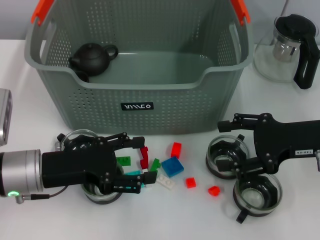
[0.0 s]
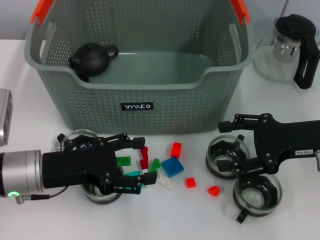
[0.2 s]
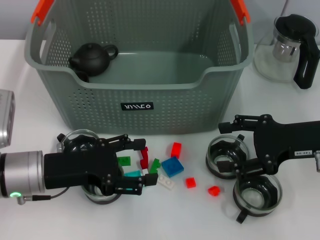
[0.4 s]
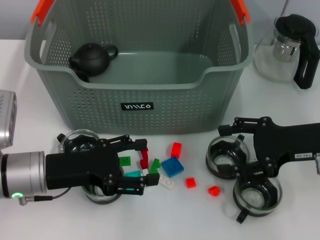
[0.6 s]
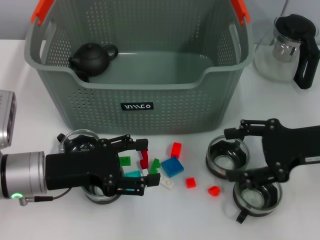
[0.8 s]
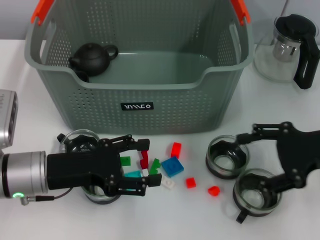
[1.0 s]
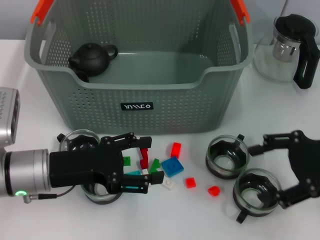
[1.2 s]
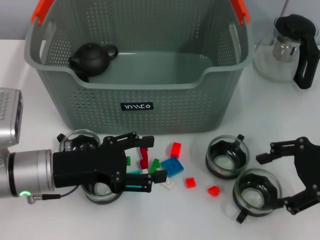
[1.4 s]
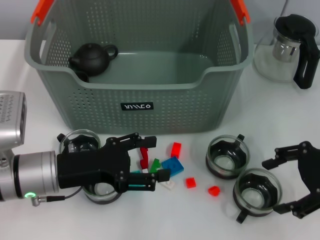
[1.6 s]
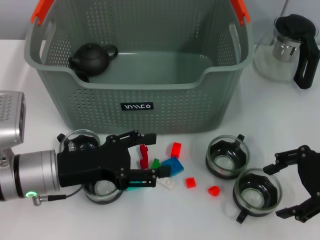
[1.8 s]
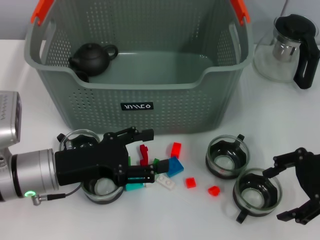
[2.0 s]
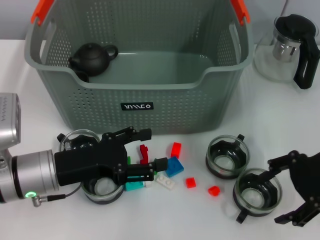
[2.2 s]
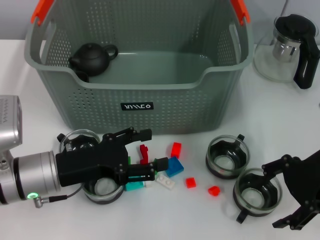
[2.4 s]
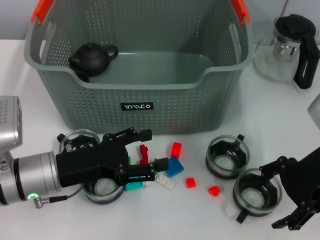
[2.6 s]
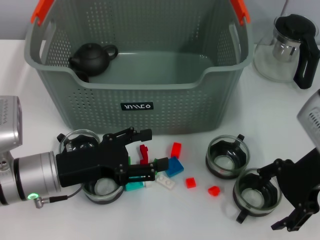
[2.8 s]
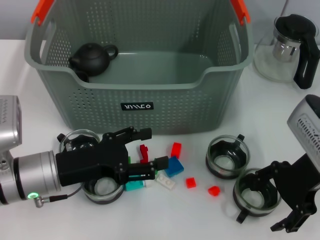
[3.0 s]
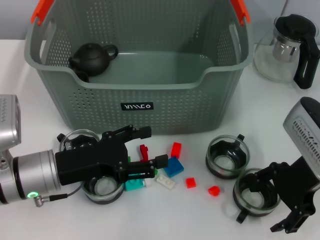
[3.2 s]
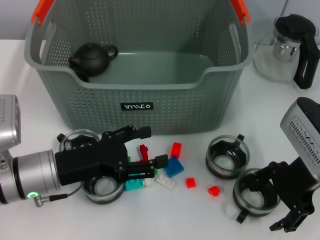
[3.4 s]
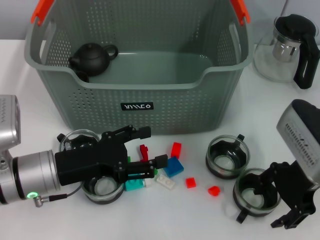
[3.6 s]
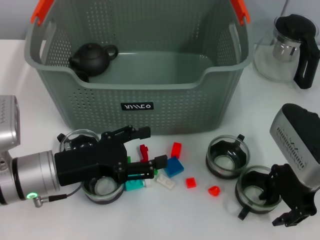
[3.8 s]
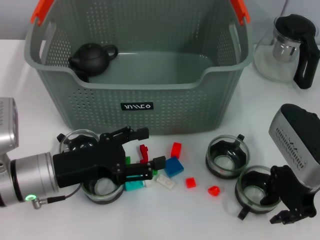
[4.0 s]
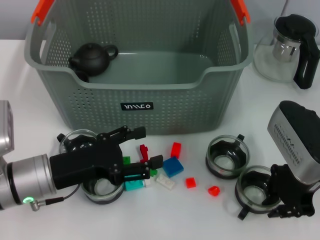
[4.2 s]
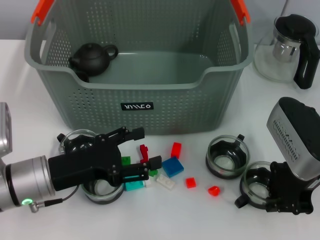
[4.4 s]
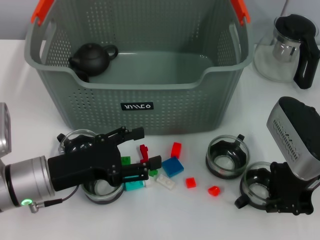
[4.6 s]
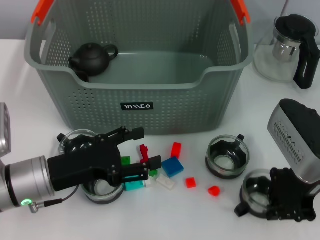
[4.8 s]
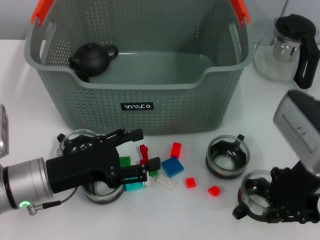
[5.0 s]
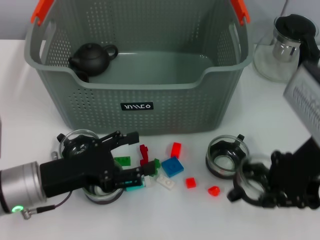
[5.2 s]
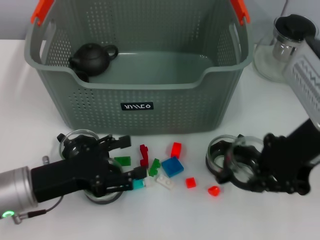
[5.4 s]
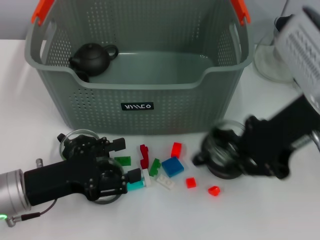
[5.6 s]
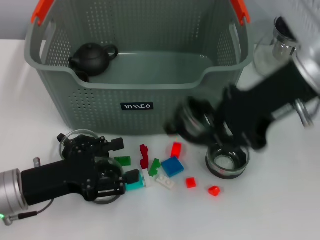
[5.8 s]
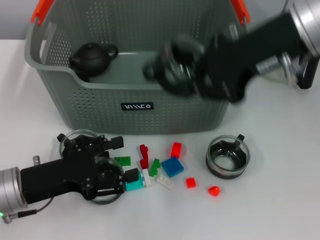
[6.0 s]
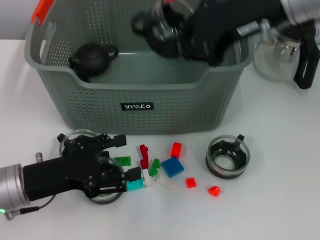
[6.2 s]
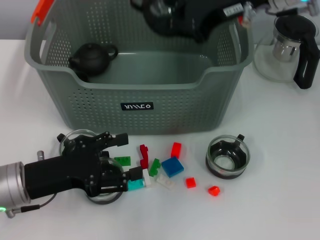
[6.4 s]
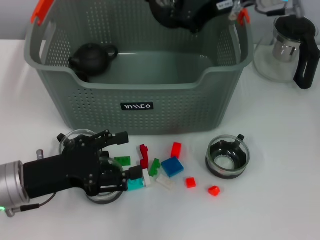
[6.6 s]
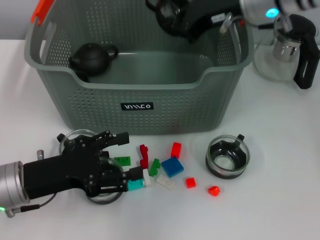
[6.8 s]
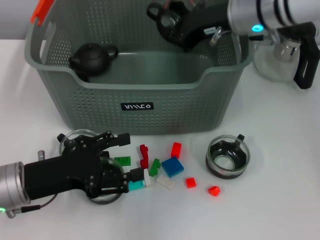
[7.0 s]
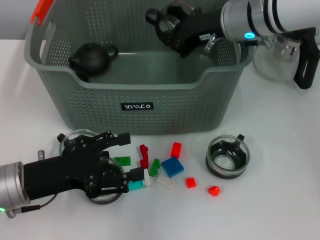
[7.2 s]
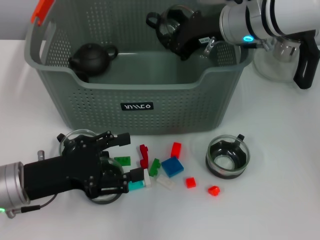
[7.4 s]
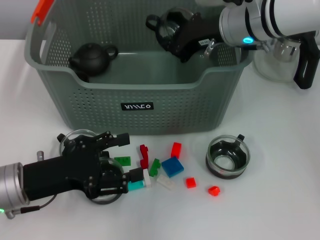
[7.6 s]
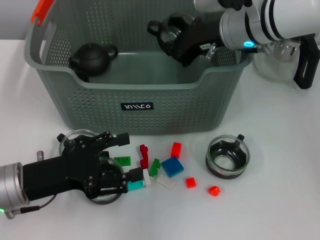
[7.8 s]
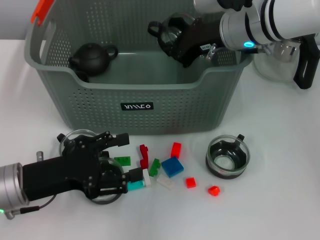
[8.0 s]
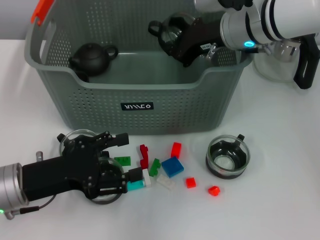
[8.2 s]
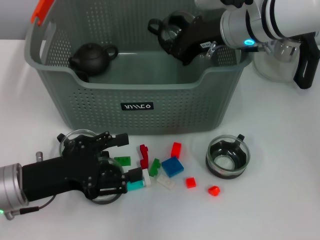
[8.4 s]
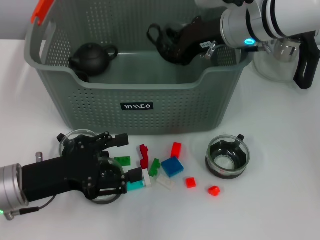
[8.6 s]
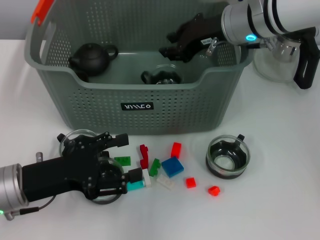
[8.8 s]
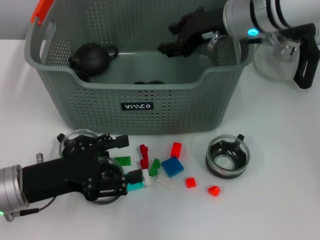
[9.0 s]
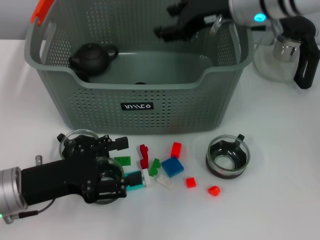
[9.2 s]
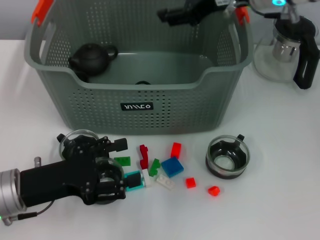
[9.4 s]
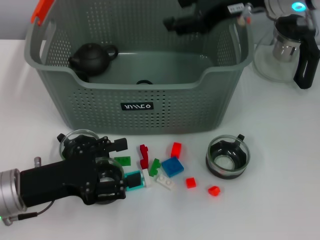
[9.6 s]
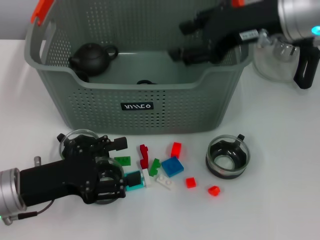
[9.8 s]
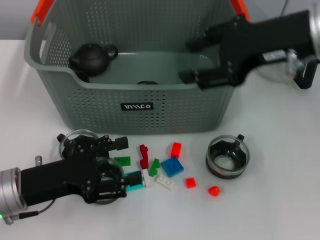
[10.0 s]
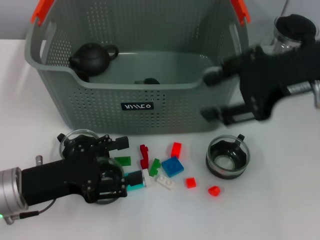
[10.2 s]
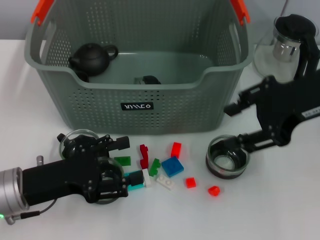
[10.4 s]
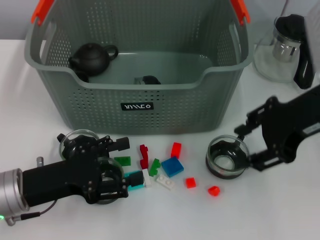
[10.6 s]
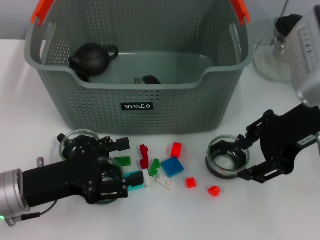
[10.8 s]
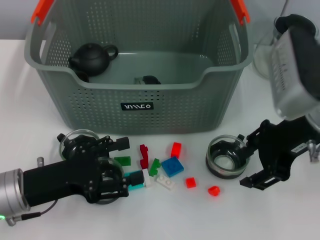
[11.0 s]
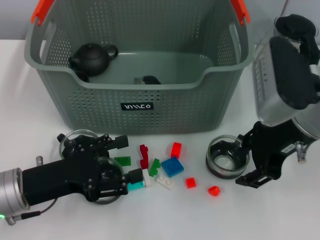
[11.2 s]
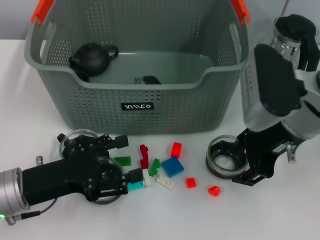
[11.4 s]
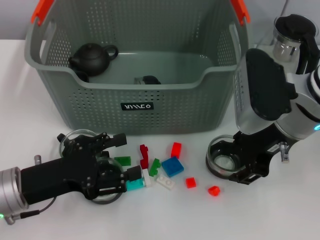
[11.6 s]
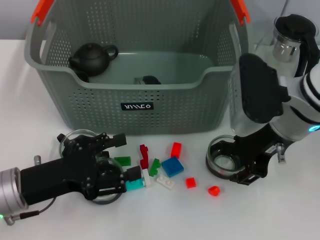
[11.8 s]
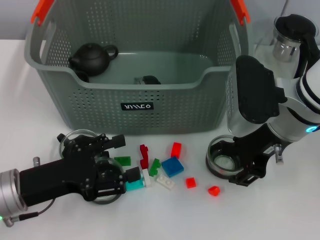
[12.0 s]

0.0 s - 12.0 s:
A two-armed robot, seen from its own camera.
Task of the whole recording: pick up the teacup on the table and place it into the storage bin, pick up the block on the table and place it into the storage bin.
Step, 0.0 s - 4.2 s: Grasp the cup with right gripper.
Step, 4.4 s - 8.6 s: Place the cup in the storage box with right gripper.
1.6 s - 3.0 s: The right gripper heads to the left, covering about 5 cm.
3.0 s - 4.4 s: The right gripper closes its fingers.
4.4 s - 6.0 s: The right gripper is displaced upward by roughly 15 cm.
6.0 s - 7.6 s: The right gripper moves downward and forward, approximately 15 cm.
7.6 s - 9.0 s: The right gripper opens up.
9.0 s - 10.4 s: The right gripper goes approximately 15 cm backward and to the right.
10.4 s - 12.0 s: The right gripper moves downward and to the left, some 10 cm.

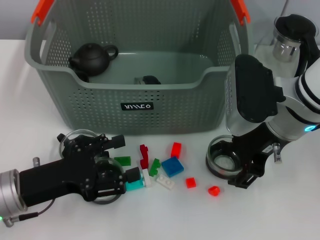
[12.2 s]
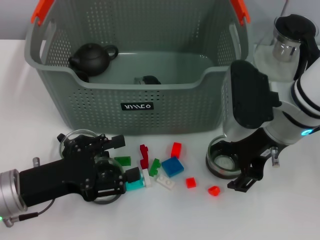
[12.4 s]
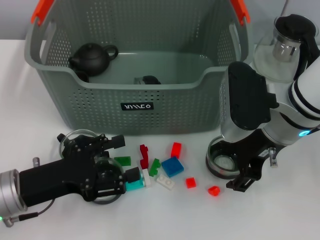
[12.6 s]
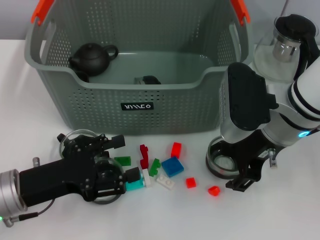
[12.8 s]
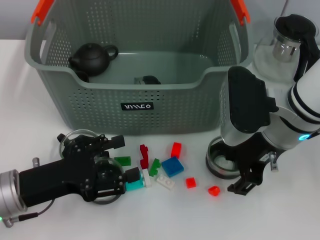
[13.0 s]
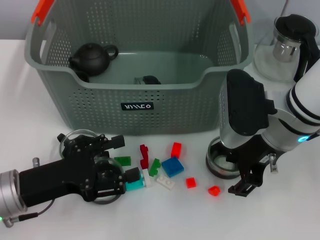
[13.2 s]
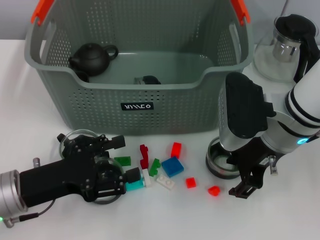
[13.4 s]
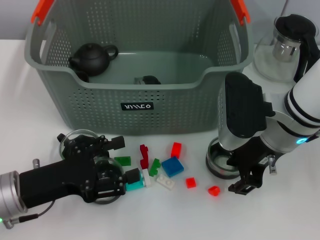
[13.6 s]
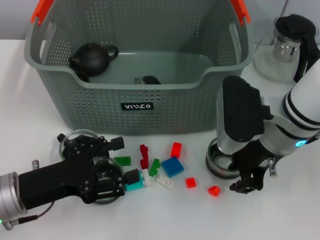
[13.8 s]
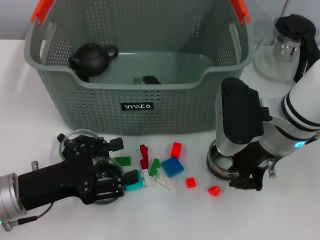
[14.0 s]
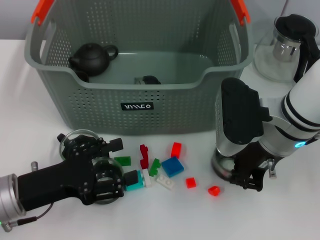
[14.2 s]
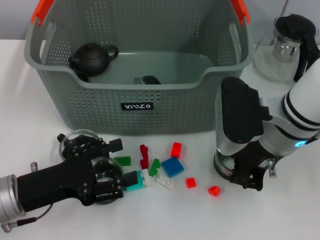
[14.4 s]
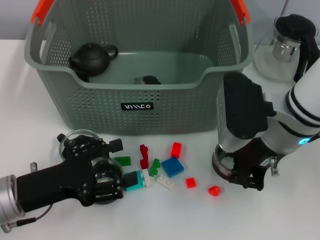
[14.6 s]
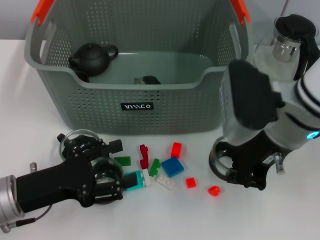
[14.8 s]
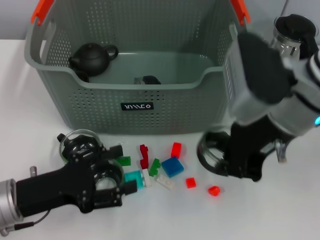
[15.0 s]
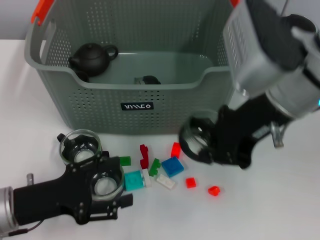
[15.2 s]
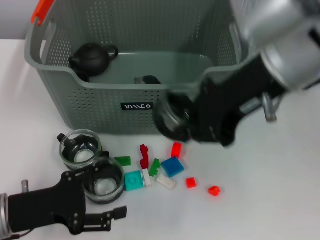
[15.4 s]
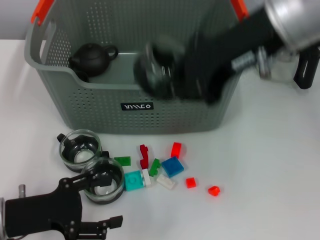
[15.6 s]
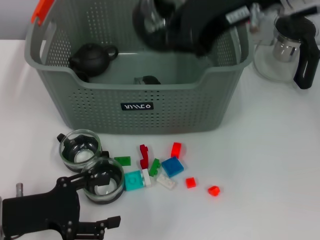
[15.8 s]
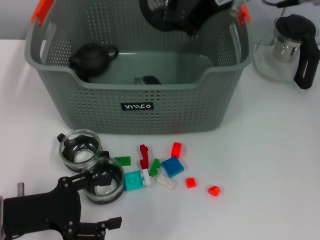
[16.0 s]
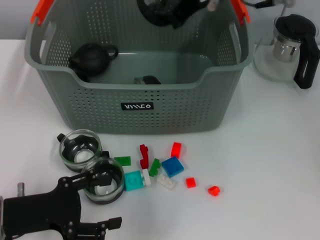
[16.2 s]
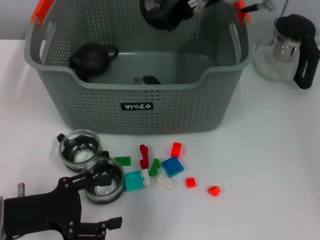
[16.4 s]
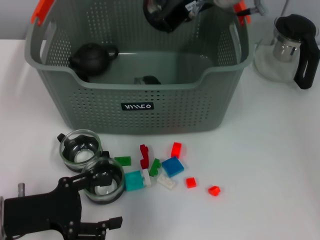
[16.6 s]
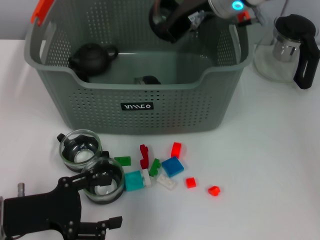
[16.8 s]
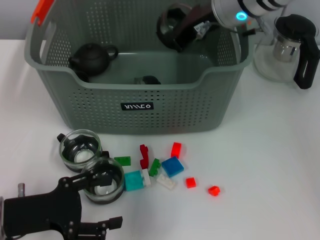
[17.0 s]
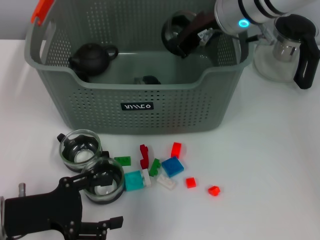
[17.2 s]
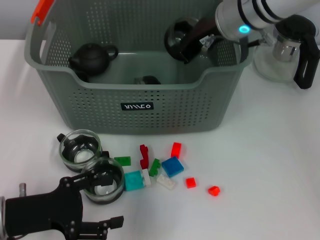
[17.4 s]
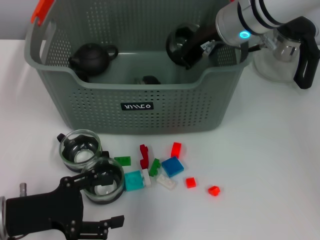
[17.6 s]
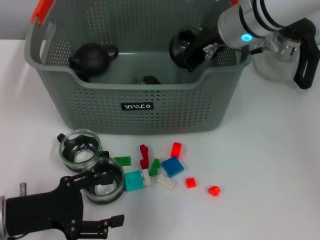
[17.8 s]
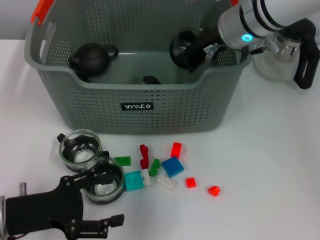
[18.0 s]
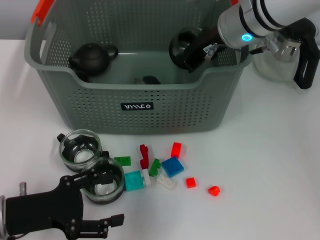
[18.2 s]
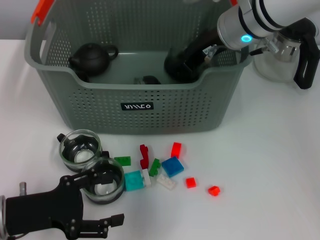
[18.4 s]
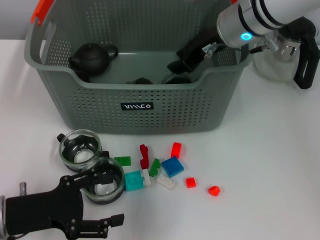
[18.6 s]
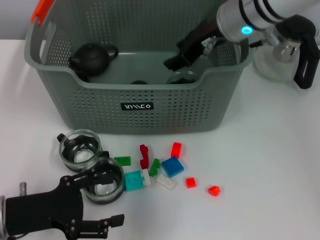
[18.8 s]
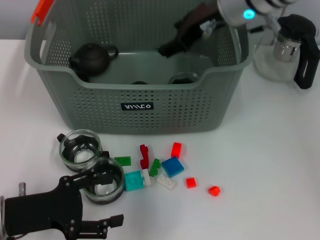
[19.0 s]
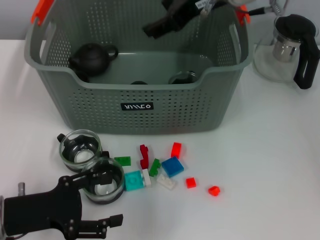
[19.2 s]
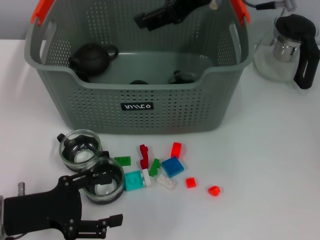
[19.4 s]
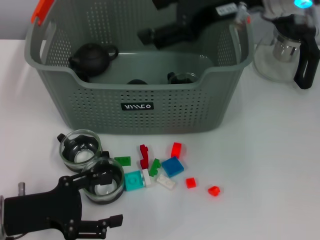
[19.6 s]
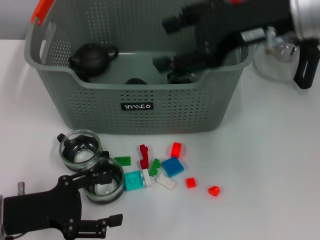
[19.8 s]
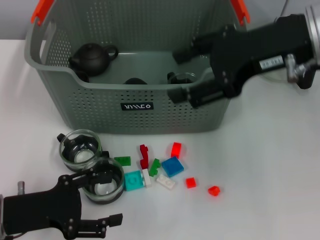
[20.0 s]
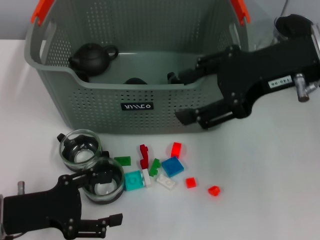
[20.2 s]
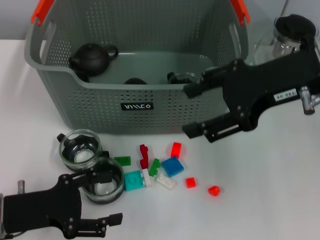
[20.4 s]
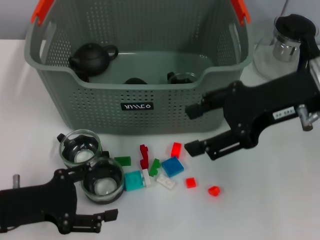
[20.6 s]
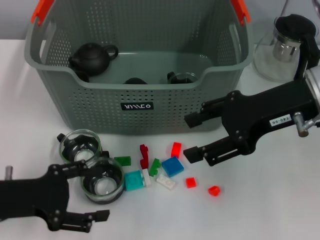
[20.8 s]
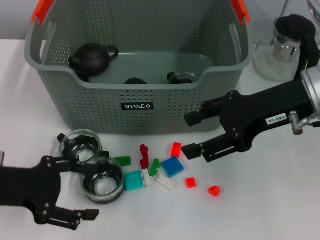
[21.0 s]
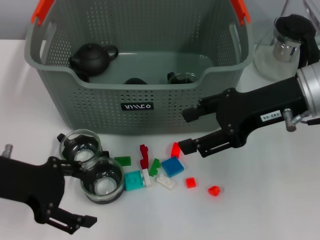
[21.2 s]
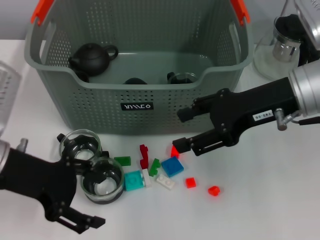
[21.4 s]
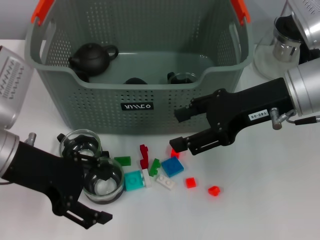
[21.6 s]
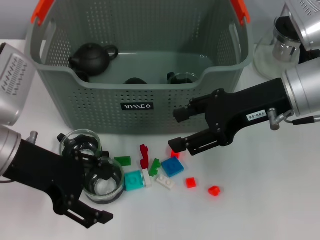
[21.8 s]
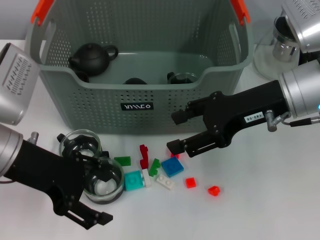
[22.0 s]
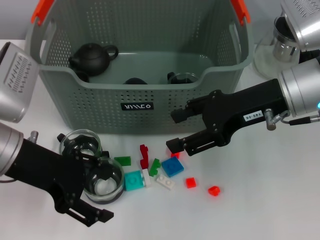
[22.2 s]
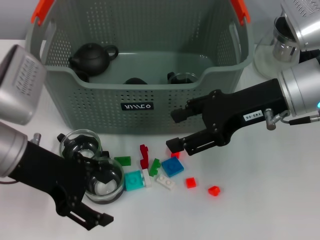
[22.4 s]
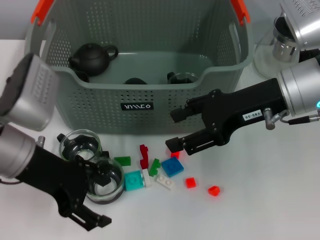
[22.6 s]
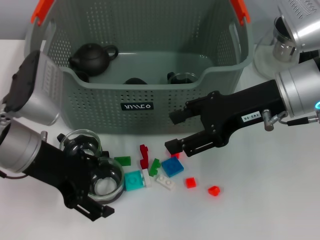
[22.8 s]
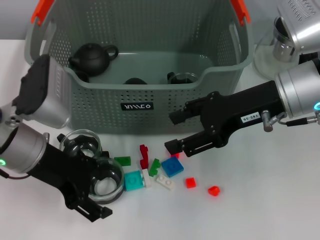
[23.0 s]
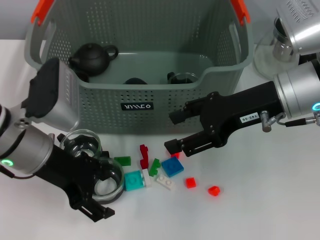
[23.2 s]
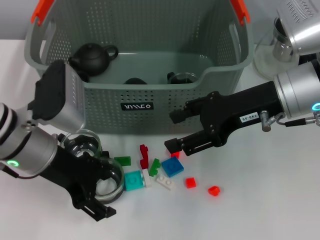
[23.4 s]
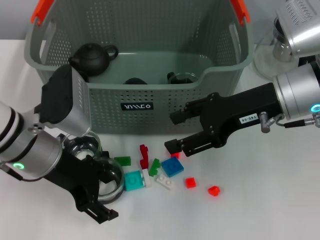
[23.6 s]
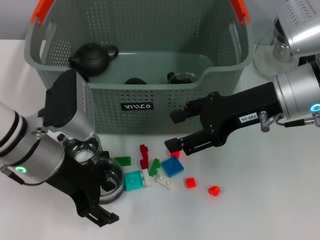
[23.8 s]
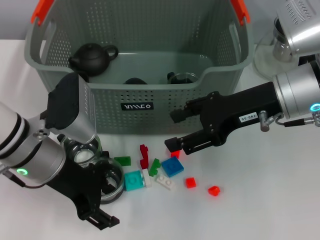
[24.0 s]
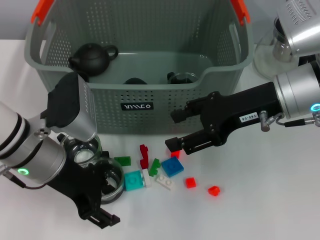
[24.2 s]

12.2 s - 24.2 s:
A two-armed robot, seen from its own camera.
Task of the whole recording: pick up the teacup on the table and place it into the storage bin, pick up the block on the table and place it into the storage bin.
Step, 12.2 s - 14.2 s: Grasp the cup with right gripper.
Step, 14.4 s - 18.8 s: Place the cup in the storage box with right gripper.
12.2 s - 13.8 s: There are only small adjustments of the grippers.
13.8 s - 15.2 s: The right gripper travels upward by roughly 10 cm, and closes its fingers.
15.2 s - 16.6 s: The right gripper travels forward by roughly 15 cm.
16.6 s - 18.2 s: The right gripper is displaced downward by some 5 cm.
18.2 s - 19.8 s: The right gripper is displaced backward, upward and to the right by approximately 15 cm, and opens up.
19.8 s - 21.2 s: The left gripper goes approximately 10 cm upward, while the right gripper travels downward by approximately 10 cm.
21.2 s - 22.6 s: The left gripper shifts about 5 cm to the right.
22.6 s - 24.2 s: The grippers stay close to where they were, moving slightly.
